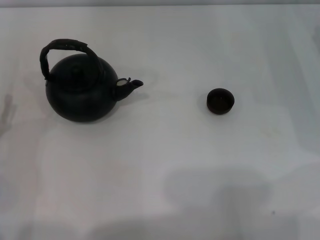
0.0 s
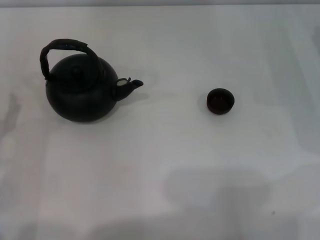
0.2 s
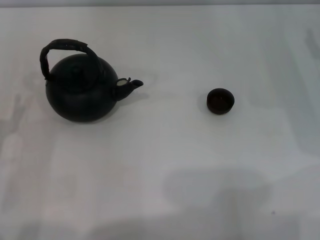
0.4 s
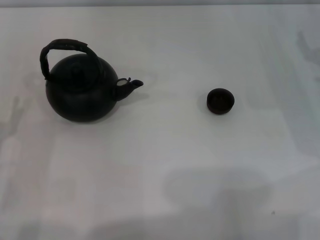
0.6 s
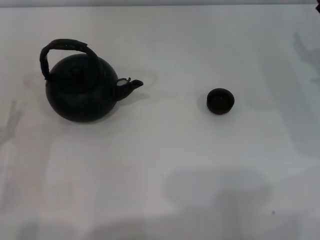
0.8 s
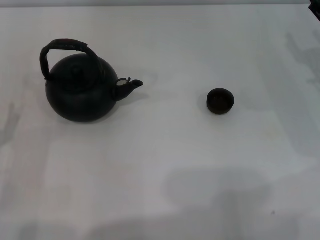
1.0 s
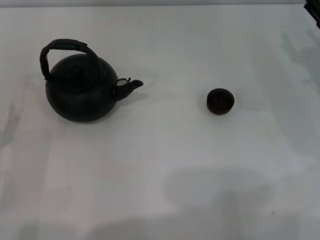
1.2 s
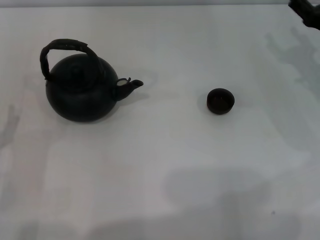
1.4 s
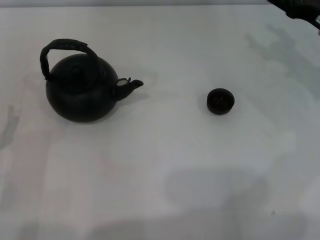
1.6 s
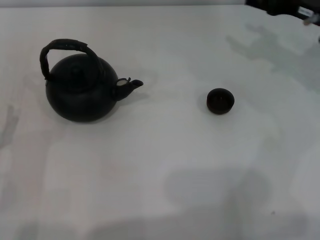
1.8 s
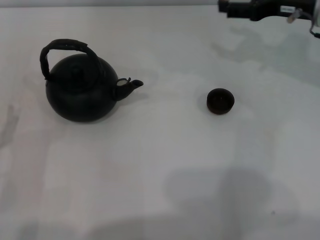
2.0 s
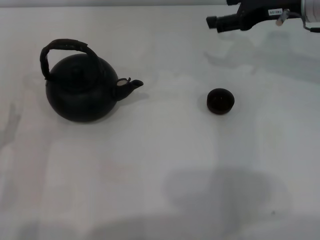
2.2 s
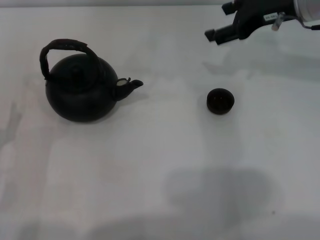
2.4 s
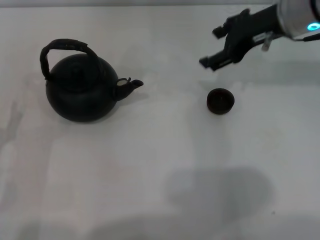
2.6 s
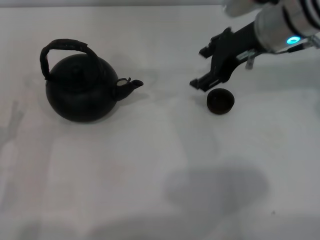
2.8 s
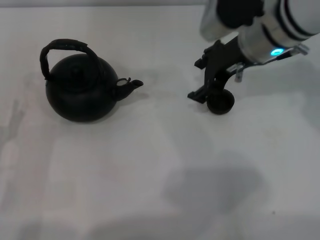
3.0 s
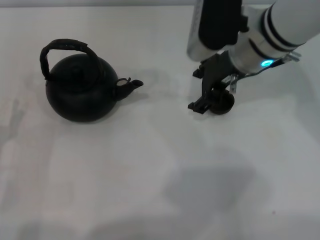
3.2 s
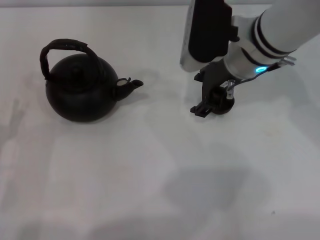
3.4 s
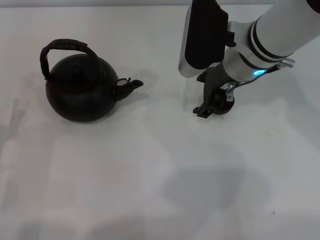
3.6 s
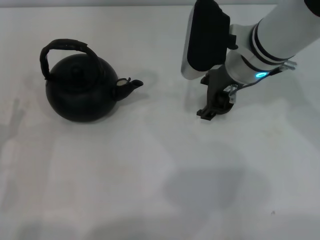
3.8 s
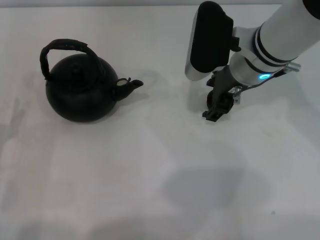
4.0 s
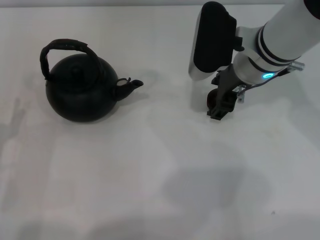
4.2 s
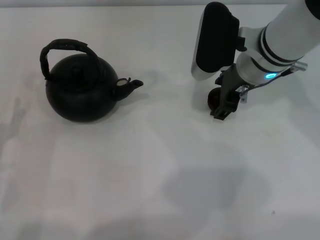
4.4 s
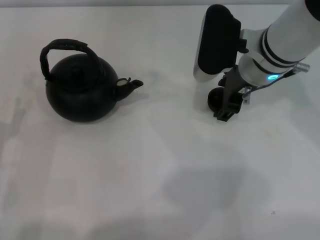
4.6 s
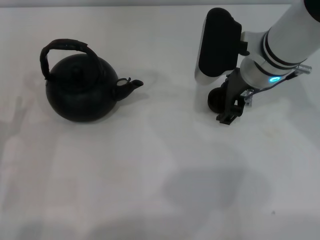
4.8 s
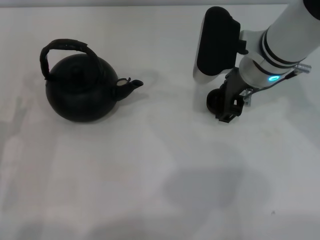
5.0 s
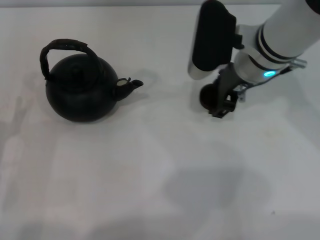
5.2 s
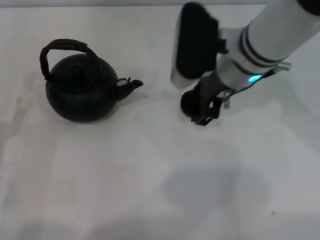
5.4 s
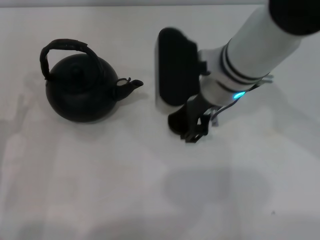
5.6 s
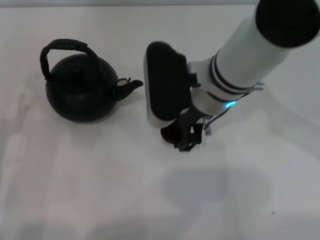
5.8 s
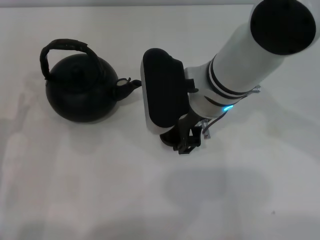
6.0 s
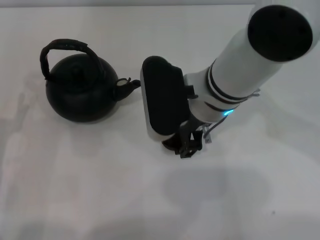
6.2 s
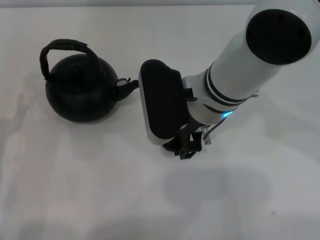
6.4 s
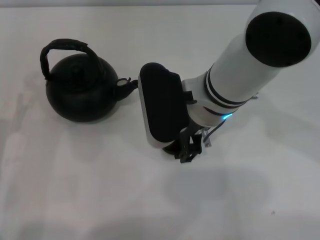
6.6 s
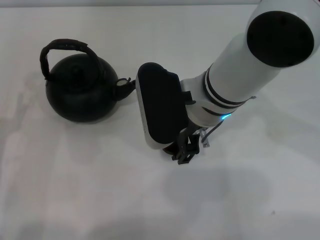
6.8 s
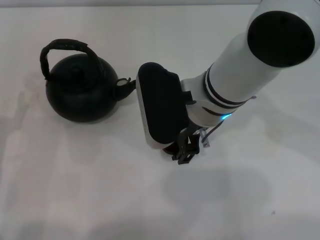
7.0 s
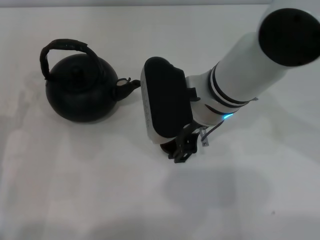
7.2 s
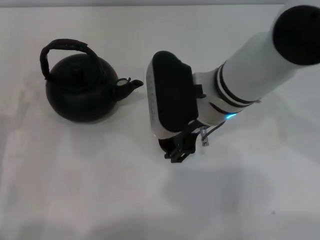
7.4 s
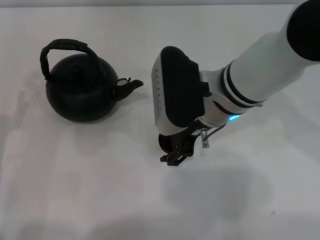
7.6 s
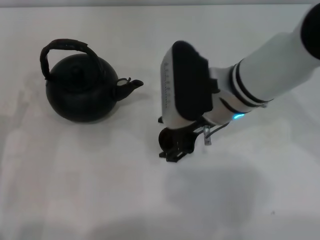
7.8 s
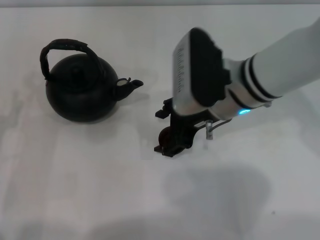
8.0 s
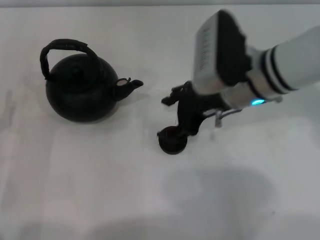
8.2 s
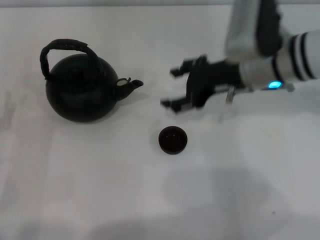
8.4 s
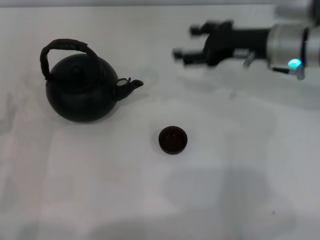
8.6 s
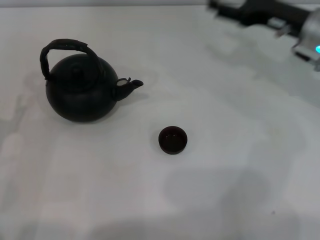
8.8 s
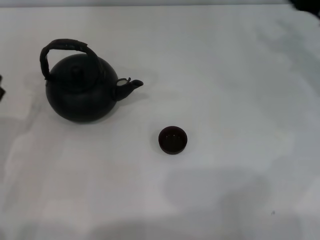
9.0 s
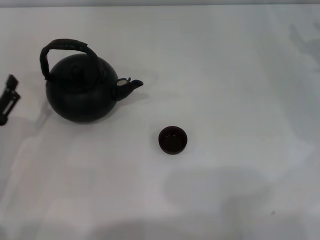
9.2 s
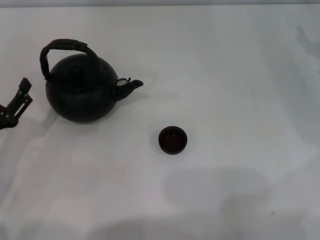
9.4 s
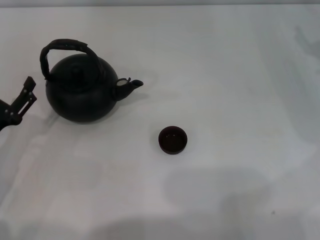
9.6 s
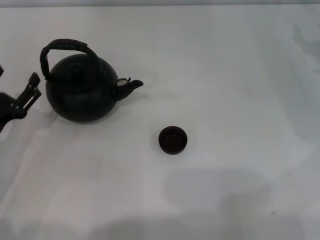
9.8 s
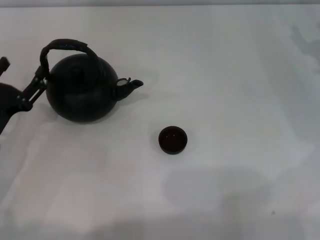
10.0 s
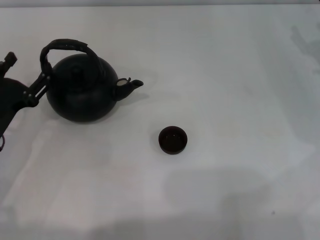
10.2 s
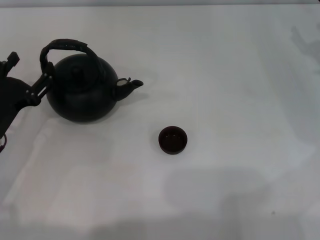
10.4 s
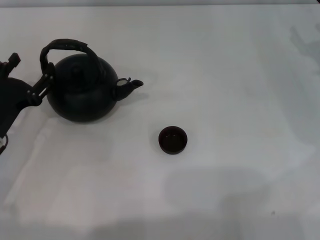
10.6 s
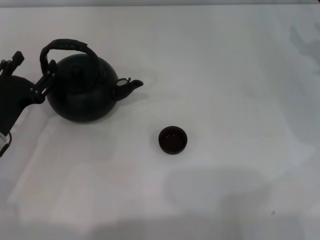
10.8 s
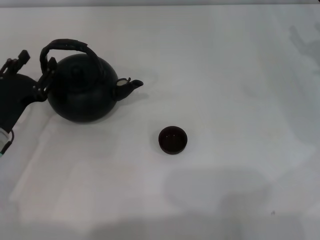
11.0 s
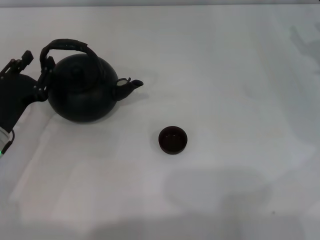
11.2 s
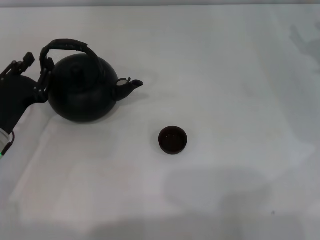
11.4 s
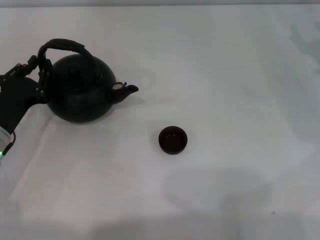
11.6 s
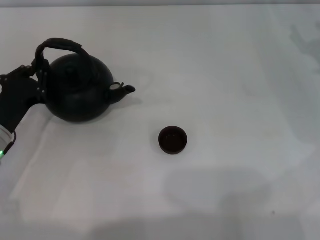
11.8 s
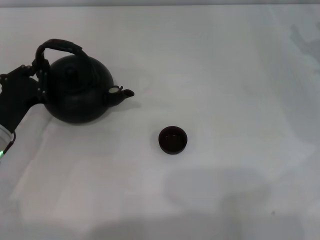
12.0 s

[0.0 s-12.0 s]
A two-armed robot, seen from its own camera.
Task of the whole recording: Grasp the handle of the teapot with one hand and pour tea into the teacup.
Step, 0.0 to 5.0 s: Pick up the teacup with the right gripper.
Step, 5.4 to 8.2 s: Place the teacup in the center of view with the right gripper.
0.0 to 1.6 s: The right gripper changes place by roughly 5 cm.
1.6 to 3.0 s: The right gripper is displaced to the left and upward by approximately 15 cm.
3.0 to 4.4 s: There are only small adjustments of the grippers.
4.4 to 6.0 s: The right gripper shifts roughly 5 cm to the left, and closes.
6.0 to 7.6 s: The right gripper opens up.
7.6 to 9.0 s: The right gripper travels to the right by approximately 25 cm.
9.0 to 10.4 s: The left gripper shifts approximately 5 cm forward.
10.4 to 12.0 s: The left gripper closes.

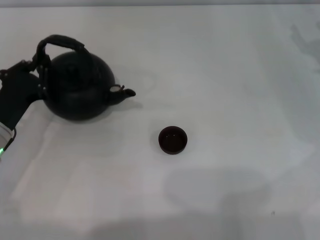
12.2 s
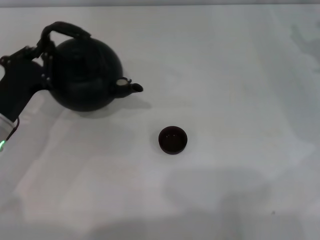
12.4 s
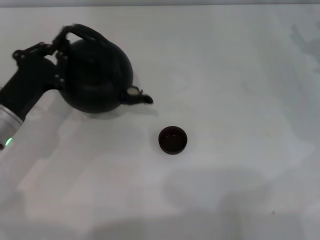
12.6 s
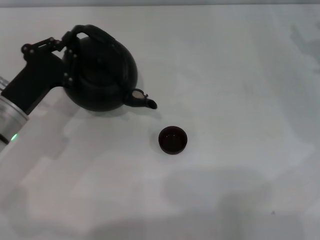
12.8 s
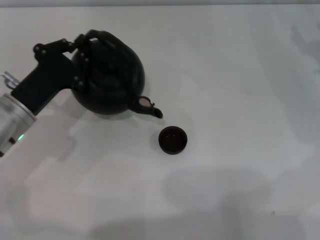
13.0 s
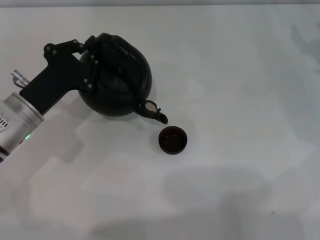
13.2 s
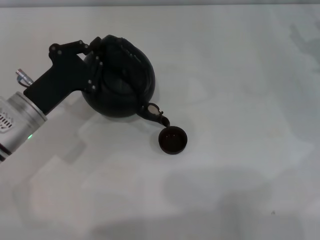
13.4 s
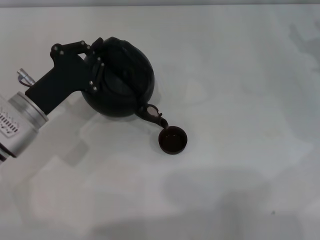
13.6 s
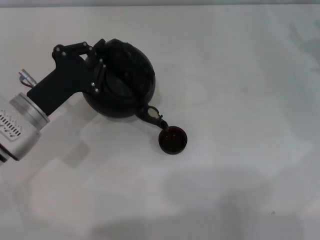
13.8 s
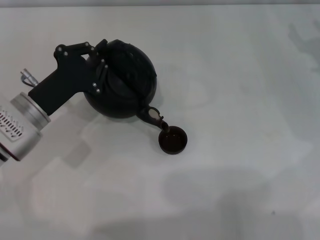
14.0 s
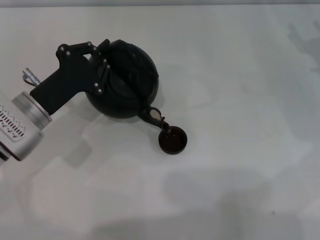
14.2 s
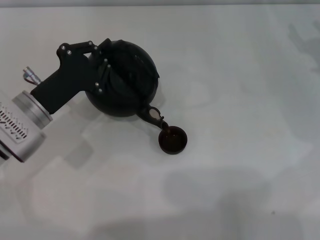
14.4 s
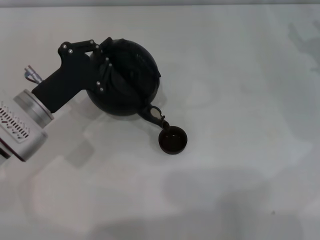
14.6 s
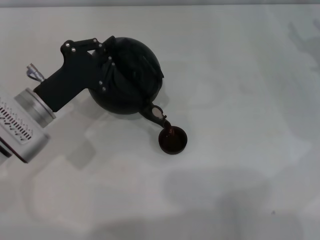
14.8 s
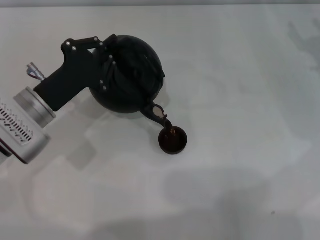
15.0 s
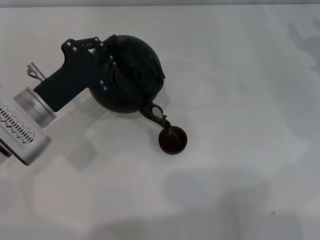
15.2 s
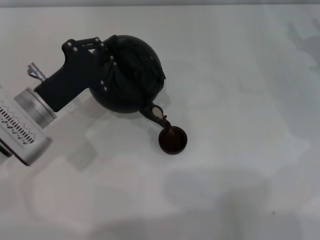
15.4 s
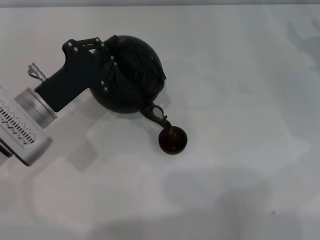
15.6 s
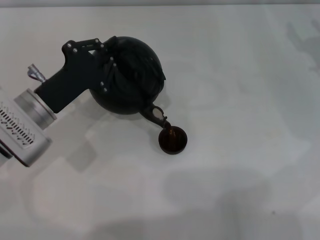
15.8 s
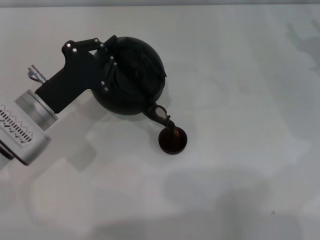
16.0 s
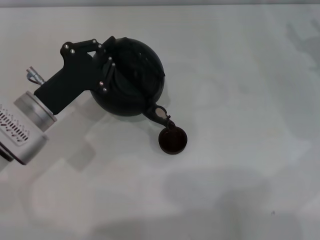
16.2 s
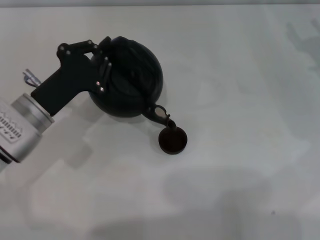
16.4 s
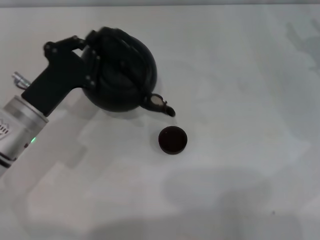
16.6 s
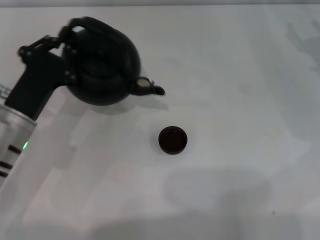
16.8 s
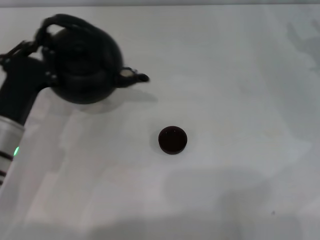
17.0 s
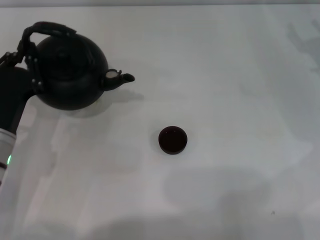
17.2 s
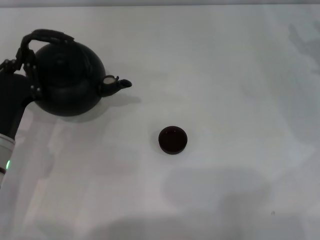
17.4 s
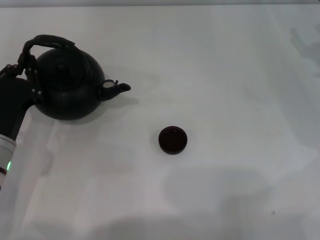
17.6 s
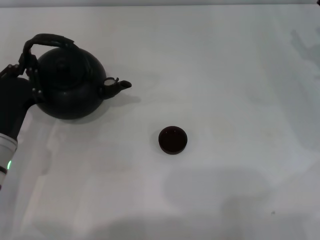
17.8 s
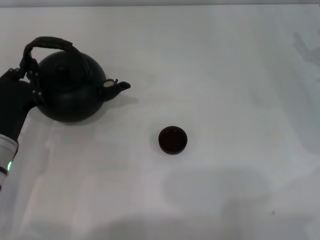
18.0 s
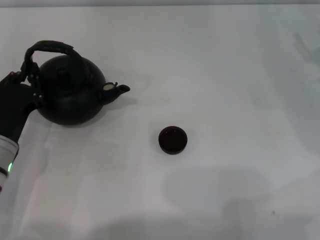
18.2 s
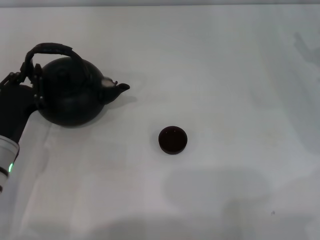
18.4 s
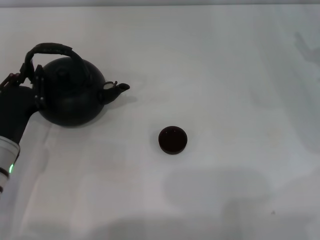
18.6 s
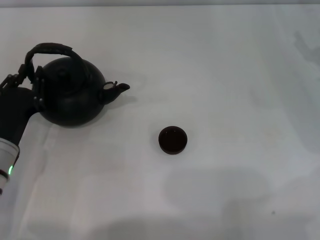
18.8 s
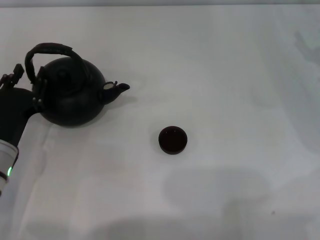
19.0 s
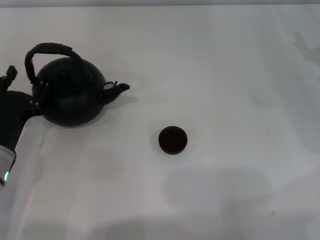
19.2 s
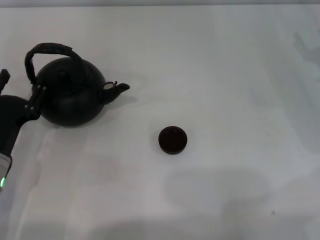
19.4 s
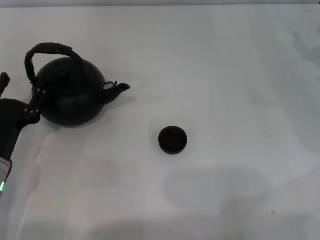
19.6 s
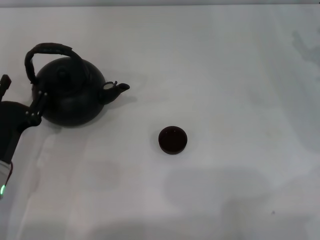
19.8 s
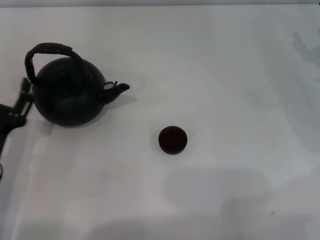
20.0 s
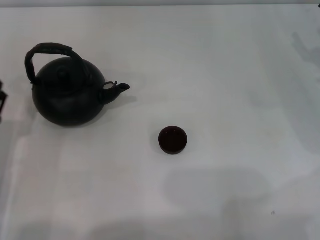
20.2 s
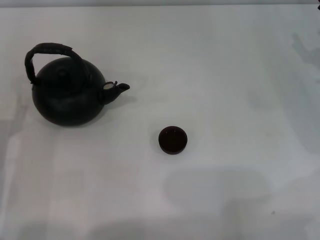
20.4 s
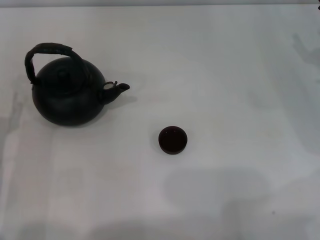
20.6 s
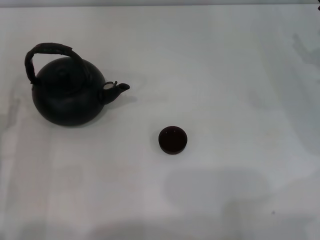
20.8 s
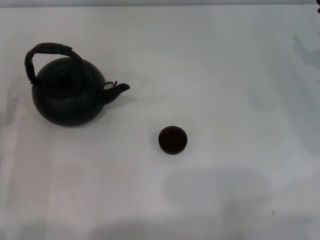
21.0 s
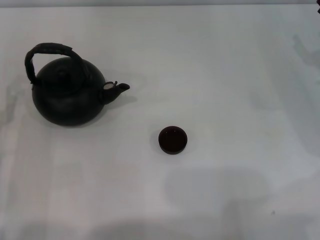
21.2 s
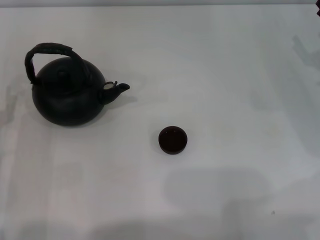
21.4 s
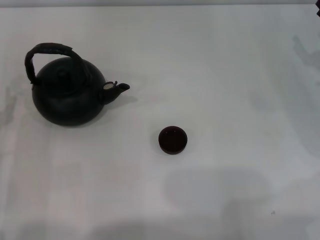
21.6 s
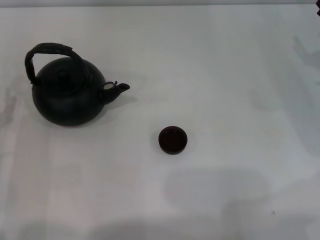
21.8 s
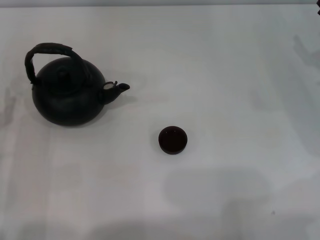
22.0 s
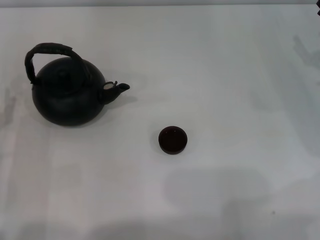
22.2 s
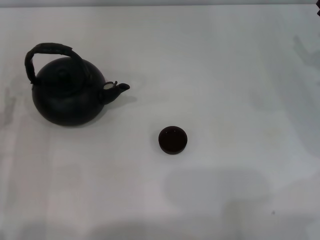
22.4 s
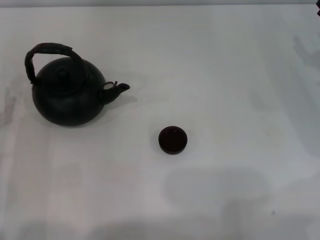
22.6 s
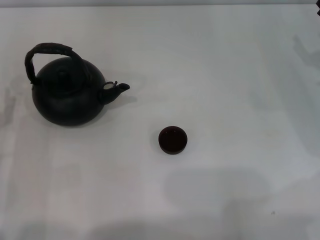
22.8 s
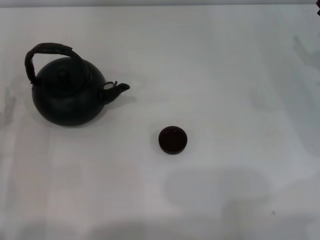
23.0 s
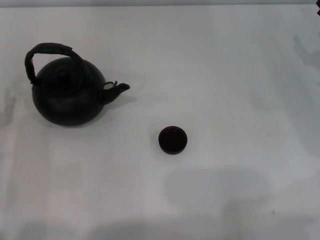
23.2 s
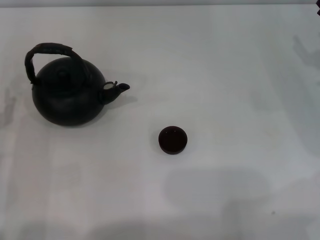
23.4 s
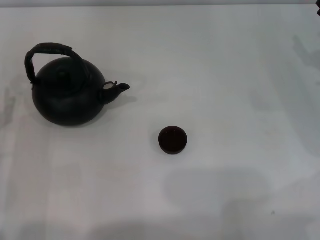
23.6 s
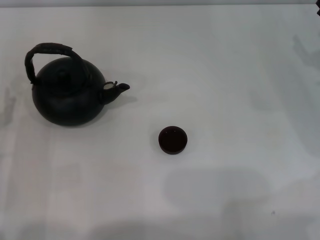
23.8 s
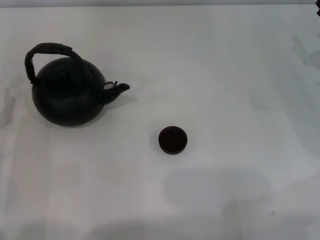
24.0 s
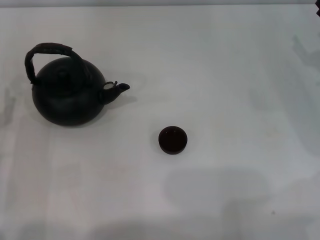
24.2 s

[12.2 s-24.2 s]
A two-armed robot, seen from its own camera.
Task of the whole recording: Grasp the handle of the teapot with one hand and pour tea into the teacup.
Step, 12.6 to 16.6 s: Pour tea into the teacup with the left gripper.
Step, 16.8 to 19.8 s: Put down the teapot with the left gripper.
12.2 to 13.8 s: The left gripper ends up roughly 5 cm from where it was.
13.8 to 16.6 s: The grippers move only a little.
16.6 to 18.2 s: The left gripper ends up some 5 cm from where it was.
18.2 to 19.8 s: The left gripper opens.
19.8 to 21.2 s: The left gripper changes place by about 5 cm.
21.2 to 24.2 s: Both grippers stay about where they are.
